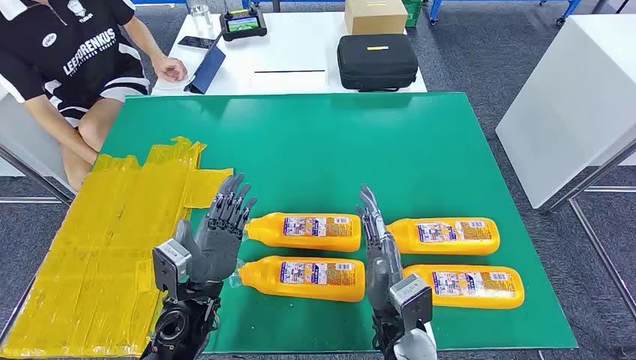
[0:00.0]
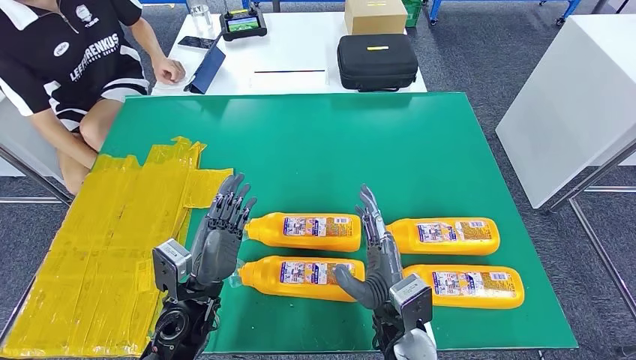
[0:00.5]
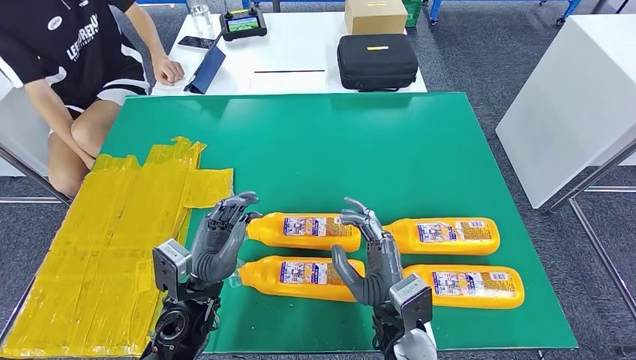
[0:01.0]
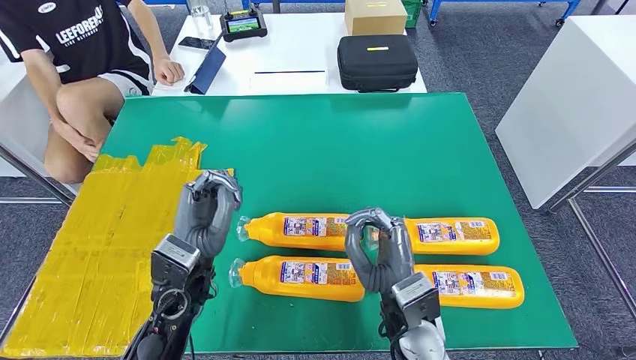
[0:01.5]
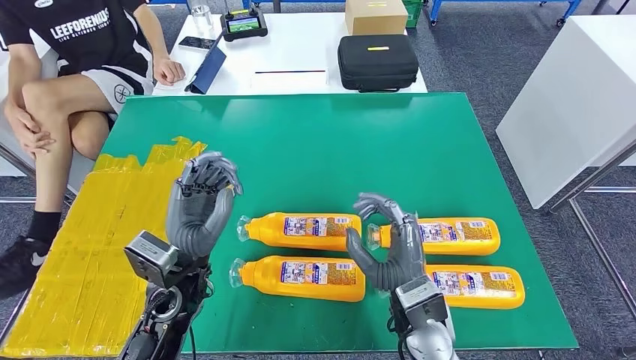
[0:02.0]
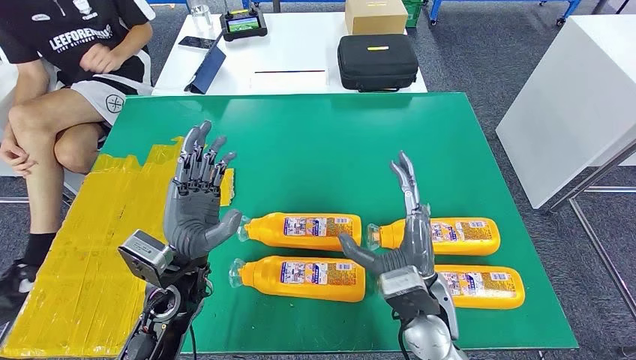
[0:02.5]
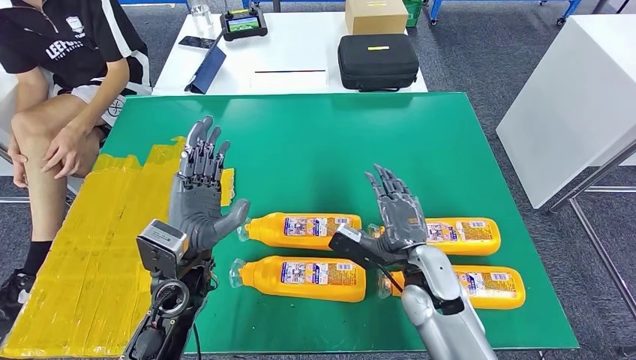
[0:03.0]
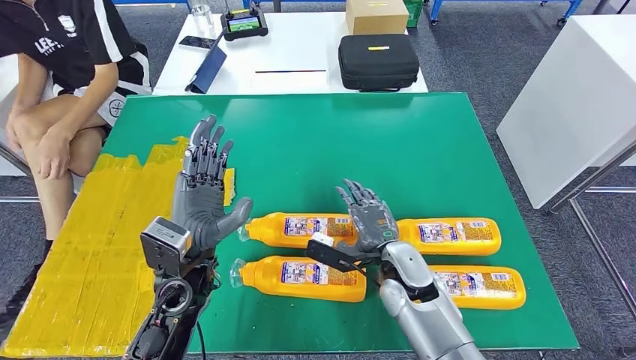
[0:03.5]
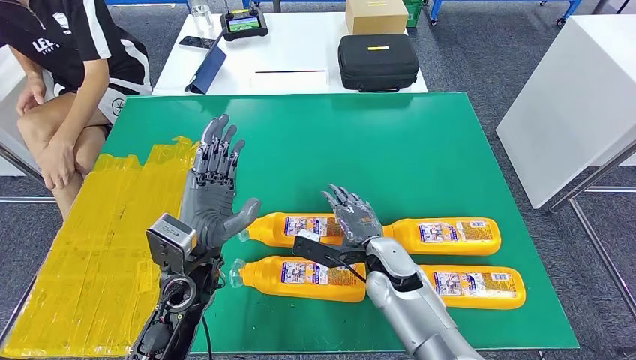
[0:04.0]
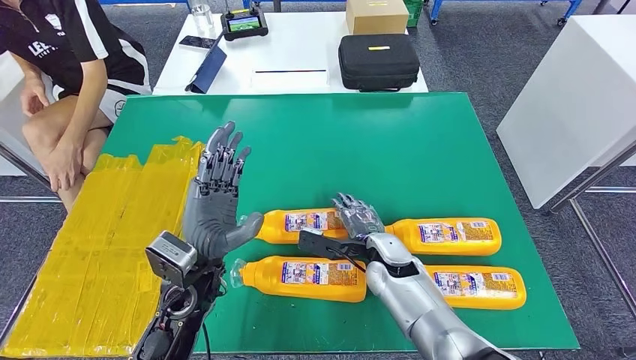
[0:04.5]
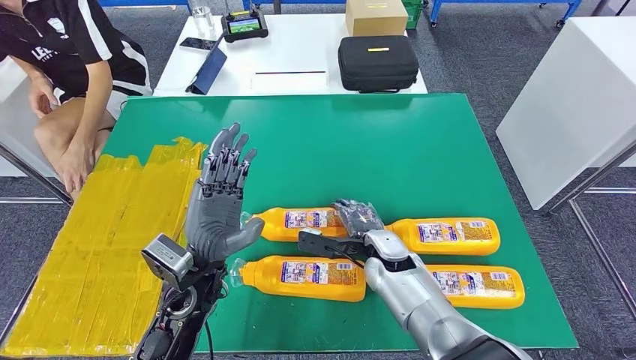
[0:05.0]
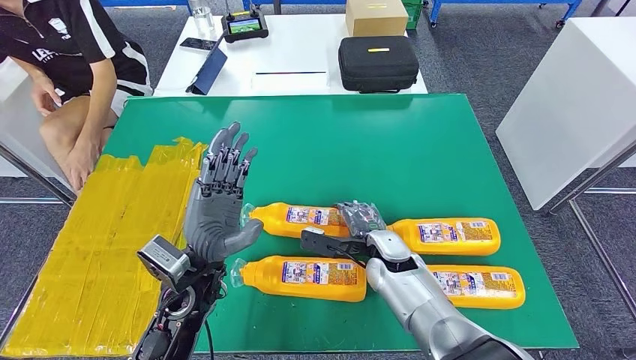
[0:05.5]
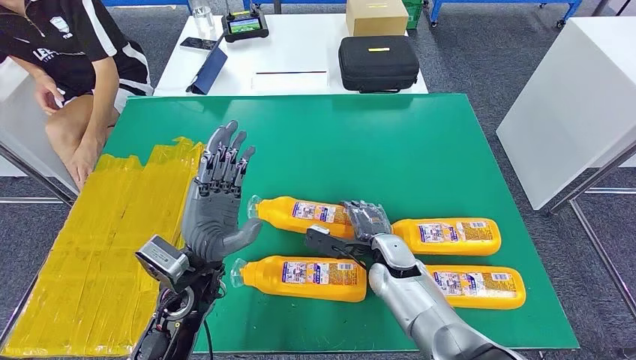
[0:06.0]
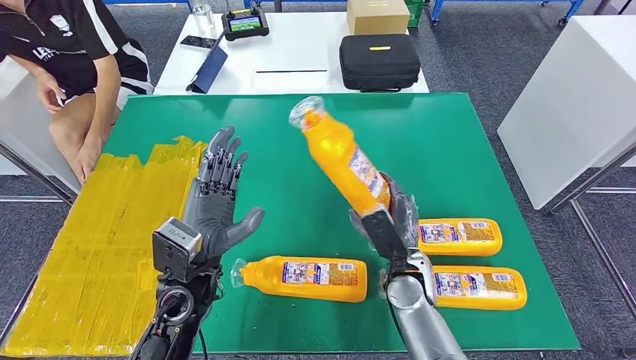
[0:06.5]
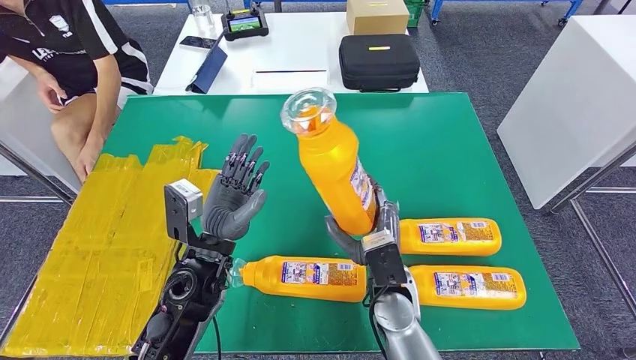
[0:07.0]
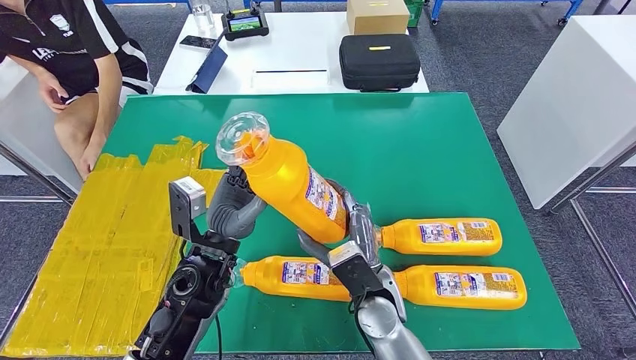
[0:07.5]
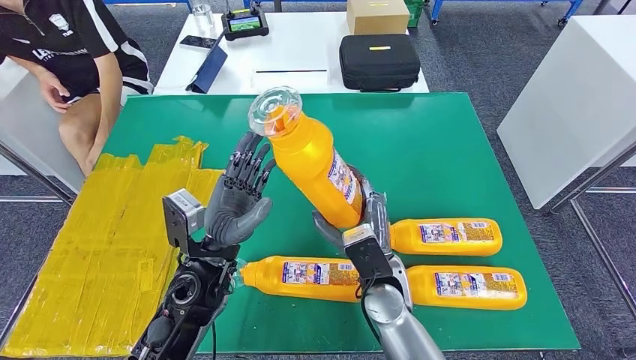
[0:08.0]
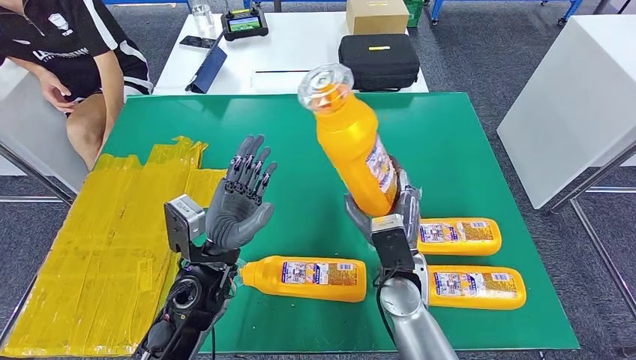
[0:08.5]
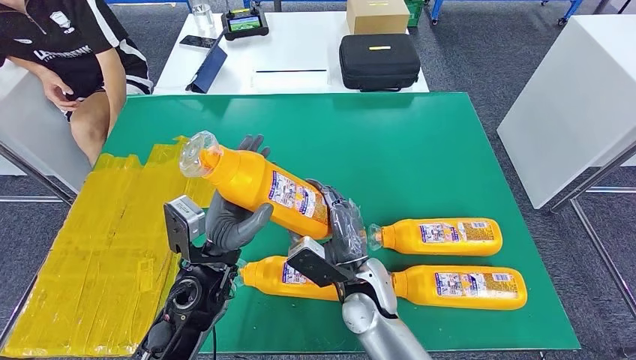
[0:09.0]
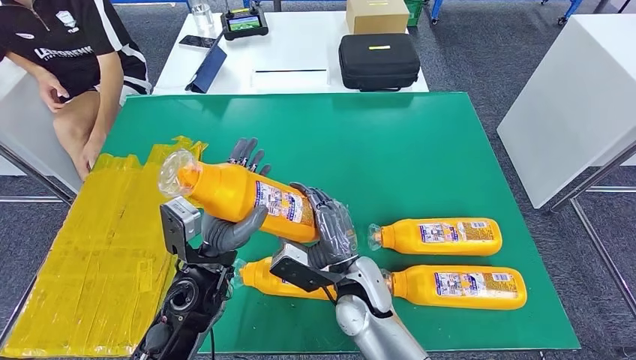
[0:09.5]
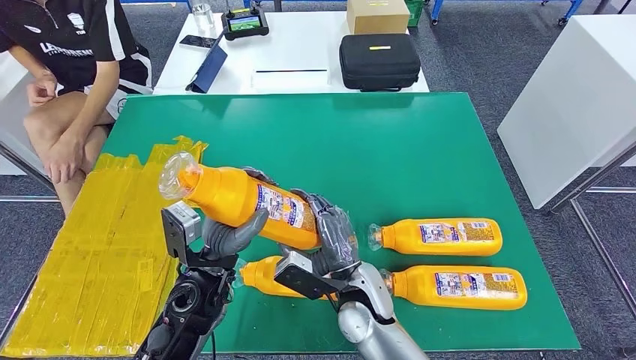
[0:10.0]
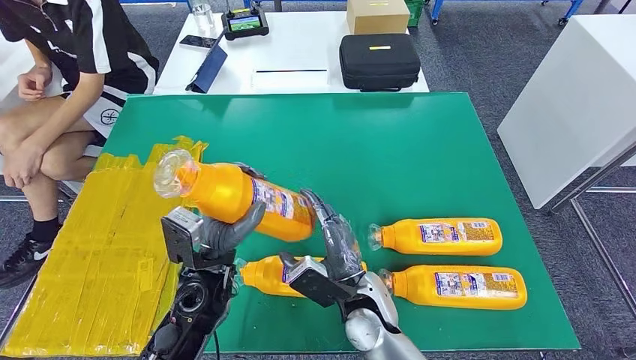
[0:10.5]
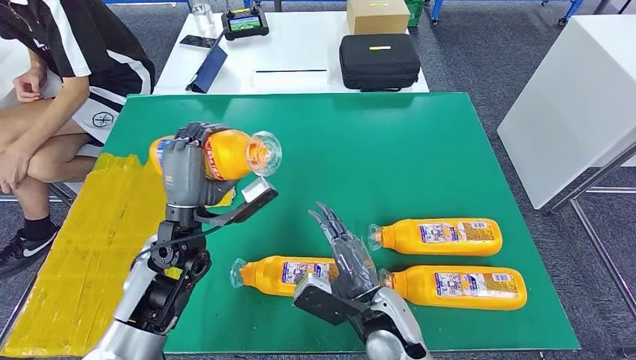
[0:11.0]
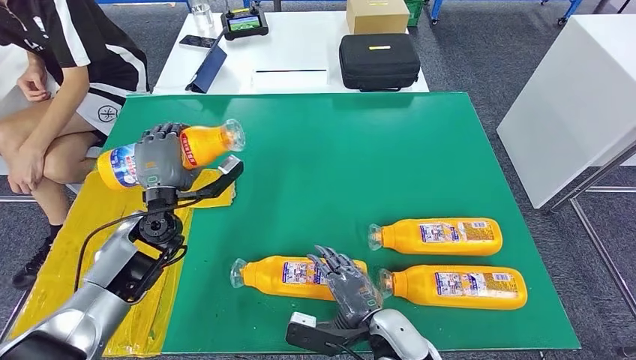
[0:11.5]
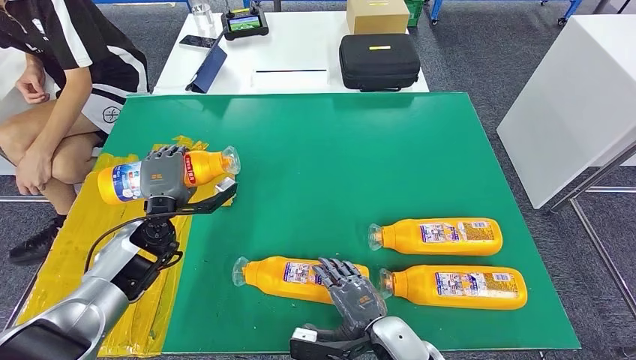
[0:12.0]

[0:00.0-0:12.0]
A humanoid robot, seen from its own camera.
Step, 0:00.0 to 0:08.0: Take the fast-moving consumer goods bottle from the table.
0:02.0 to 0:04.0: The right hand travels forward by about 10 cm.
0:04.0 to 0:06.0: The hands make only small movements.
0:06.0 to 0:08.0: The right hand is displaced backward and upward by roughly 10 cm.

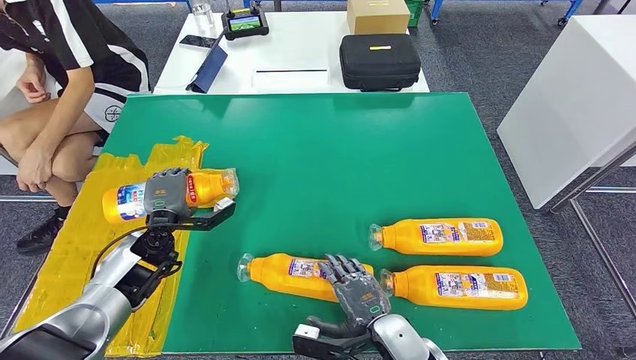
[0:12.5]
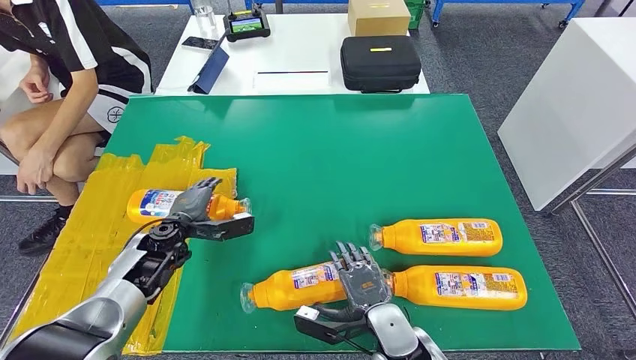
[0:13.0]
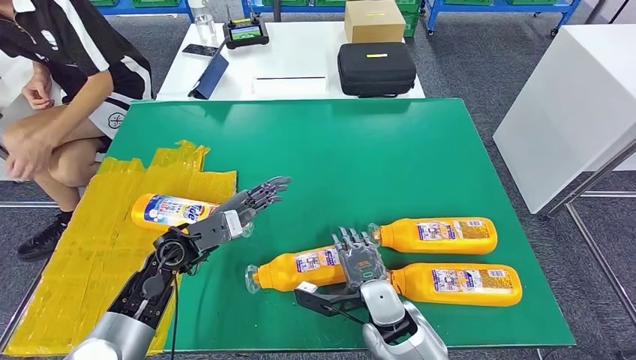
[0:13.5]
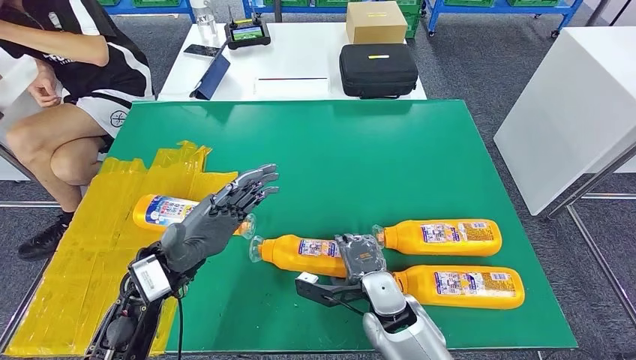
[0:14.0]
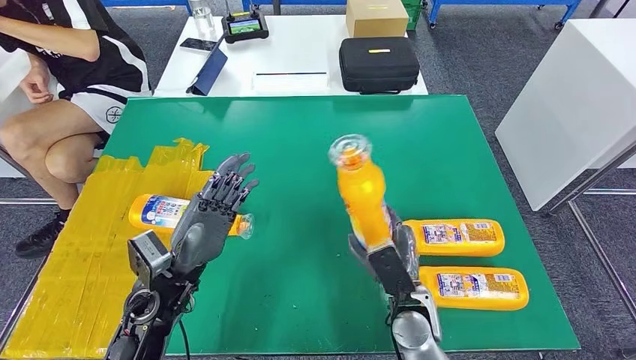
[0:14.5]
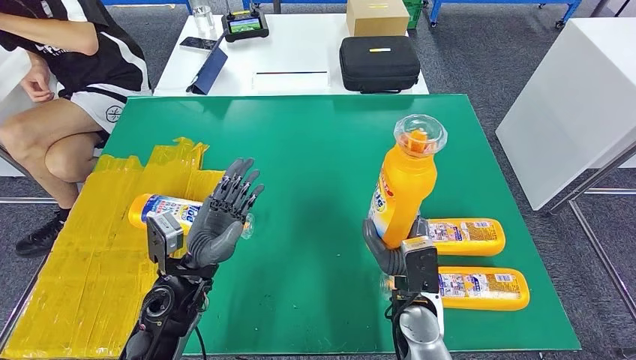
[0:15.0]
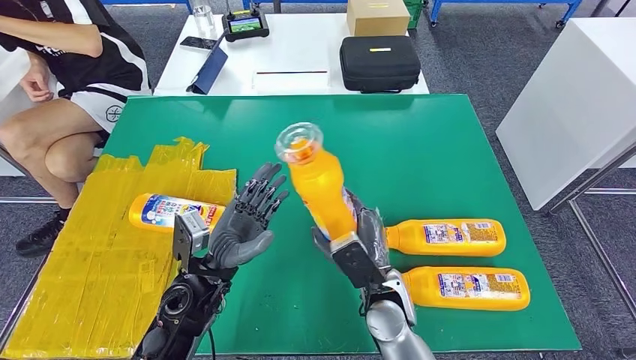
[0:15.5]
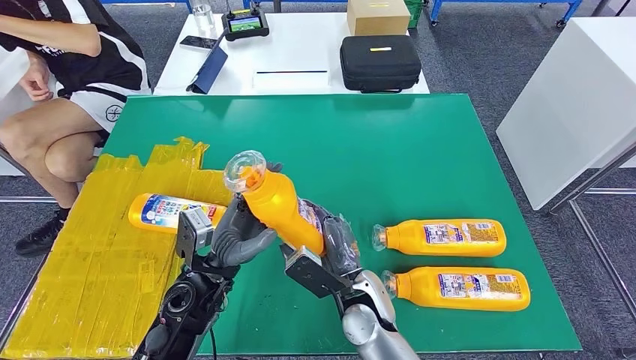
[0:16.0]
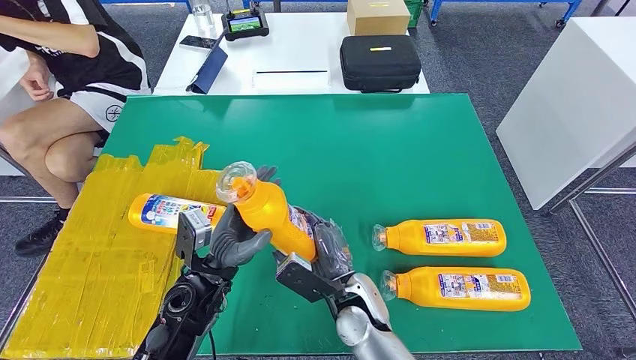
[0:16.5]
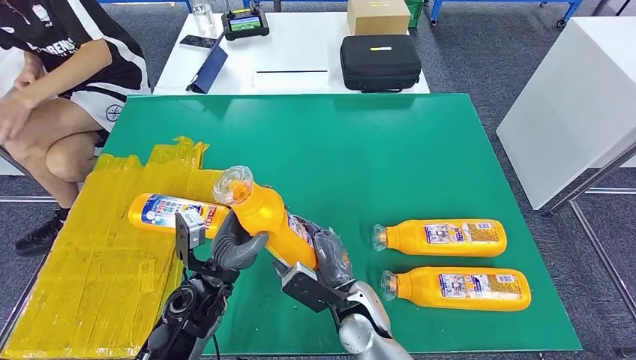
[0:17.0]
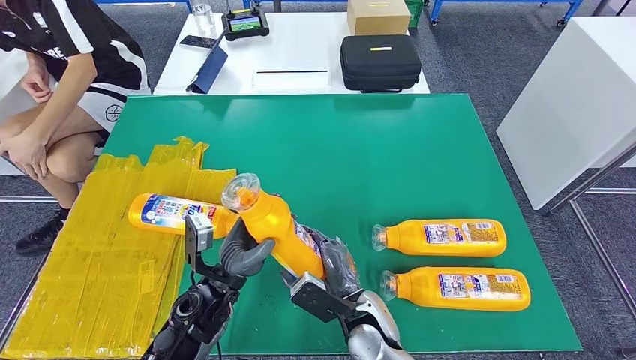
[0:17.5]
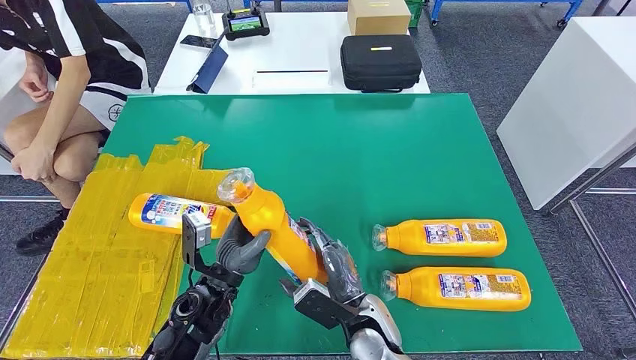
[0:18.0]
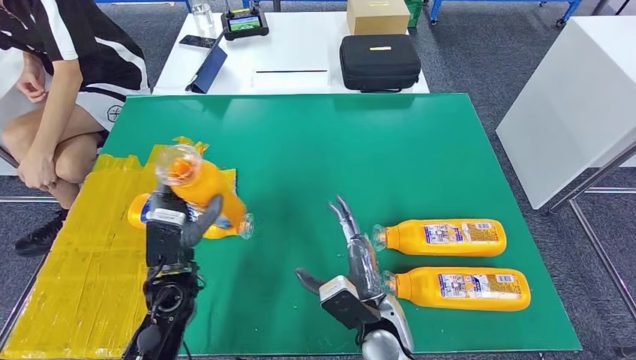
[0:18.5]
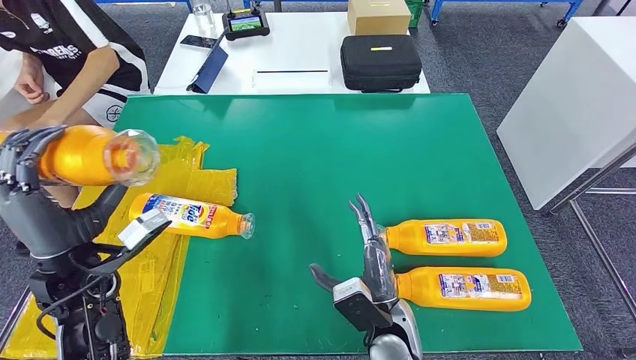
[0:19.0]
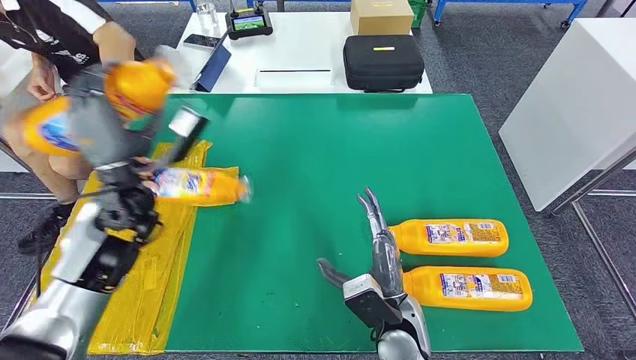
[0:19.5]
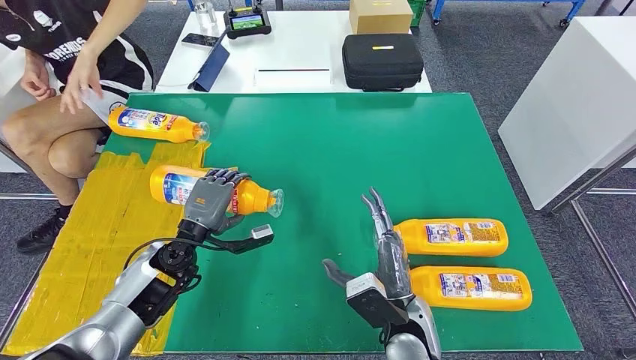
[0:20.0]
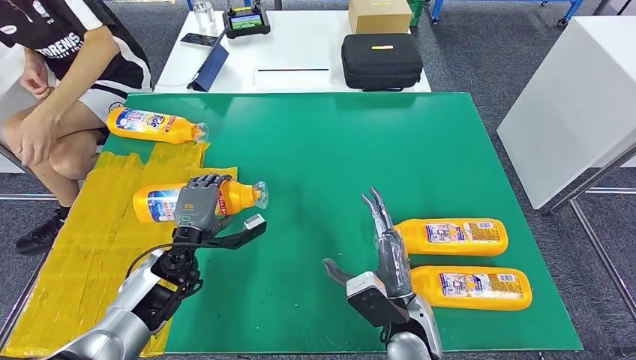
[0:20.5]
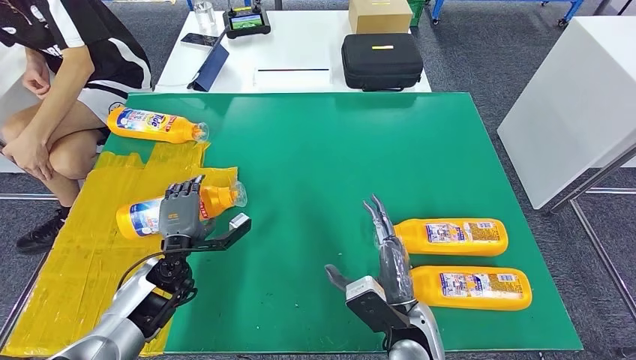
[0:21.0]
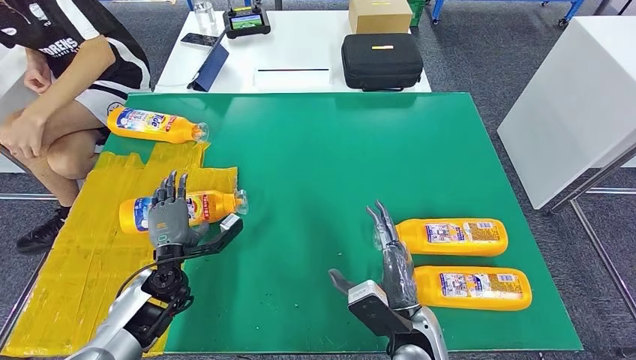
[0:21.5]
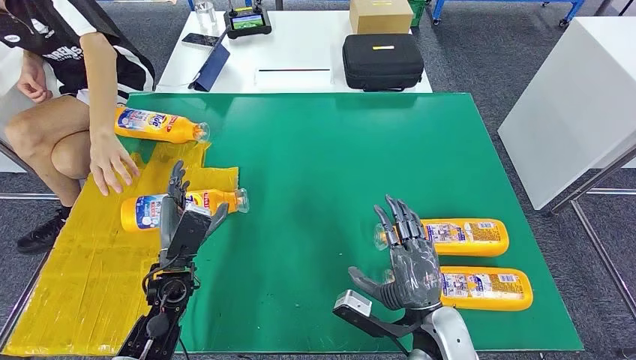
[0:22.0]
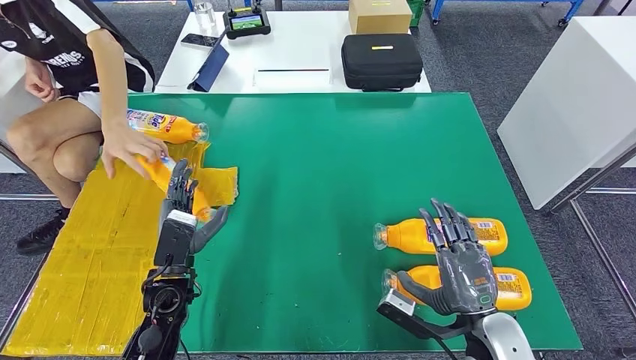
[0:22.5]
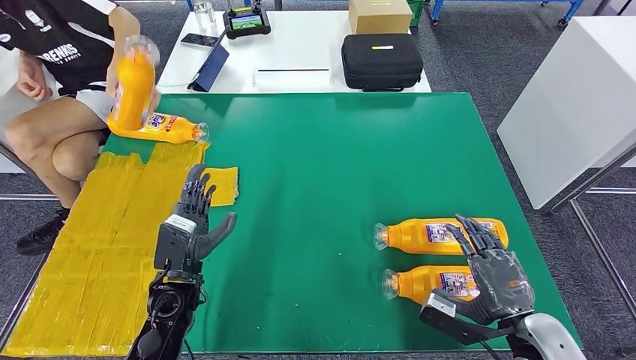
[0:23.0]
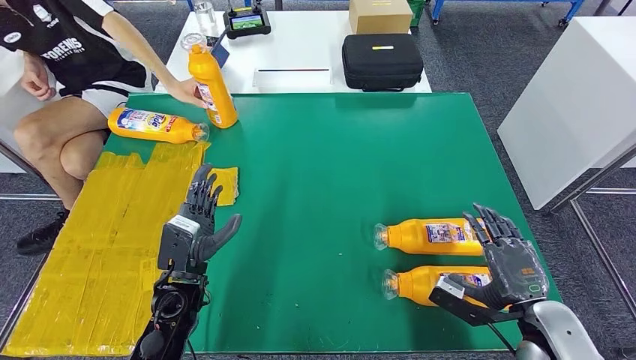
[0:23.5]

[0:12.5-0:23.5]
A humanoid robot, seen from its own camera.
Step, 0:13.0 to 0:16.0: Pick up the fast-moving consumer goods bottle from the table.
Step, 0:16.5 to 0:20.5: Flip the fast-moving consumer goods bottle to the front side.
0:16.0 to 0:18.0: The hands move only a little.
0:20.0 to 0:21.5: The left hand ends up about 5 cm from where it was.
